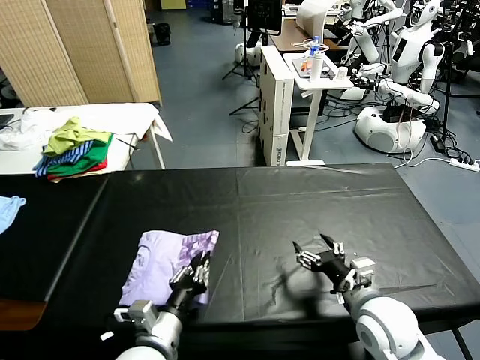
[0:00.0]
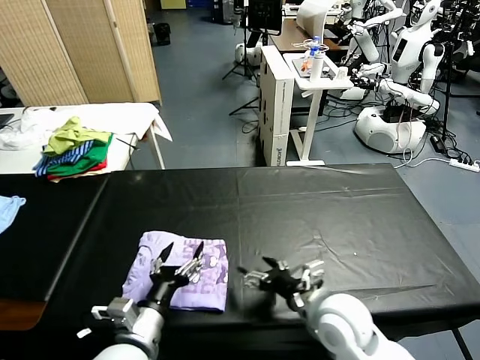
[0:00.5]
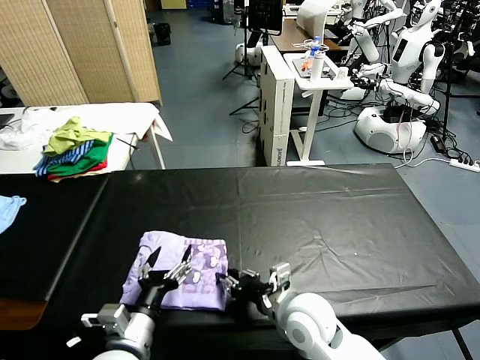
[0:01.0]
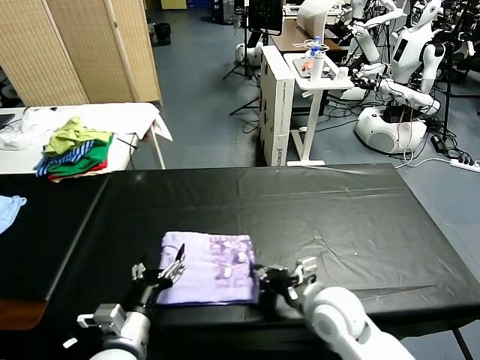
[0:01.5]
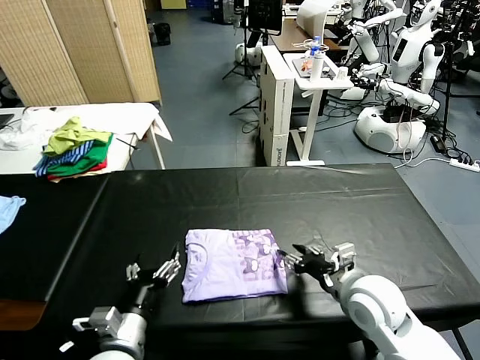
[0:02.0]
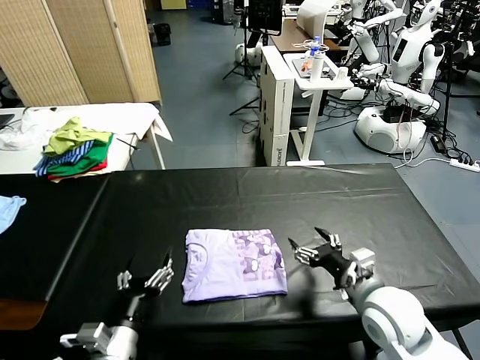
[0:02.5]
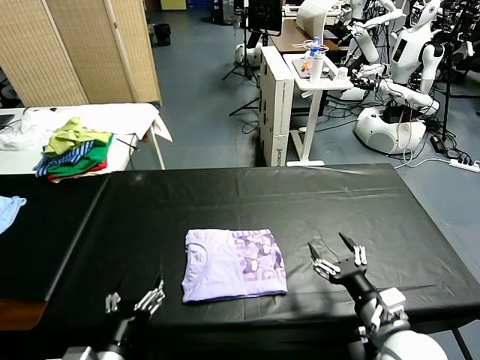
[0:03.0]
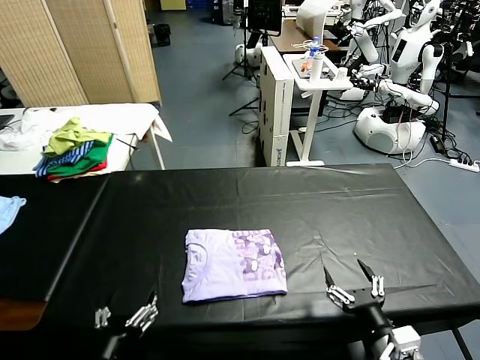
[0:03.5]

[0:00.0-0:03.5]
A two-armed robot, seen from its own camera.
Task of the whole recording: fold and organize the clothes.
Step, 0:00.5 to 0:02.0: Drag the clothes to the center of the table.
0:00.0 to 0:02.0: The right gripper moves about 15 cm to the left and comes back, and closes up. Meanwhile the left gripper opens up.
0:02.0 to 0:03.5: The right gripper travels backward by approximately 15 cm, and opens up. Meanwhile the left gripper is displaced backward by approximately 10 cm.
